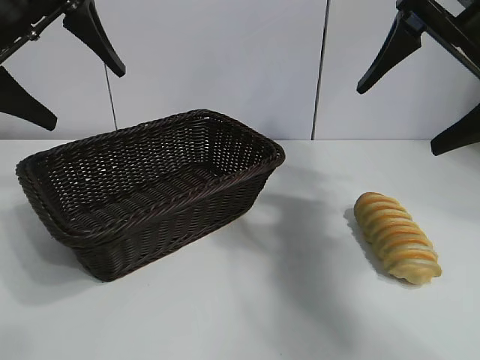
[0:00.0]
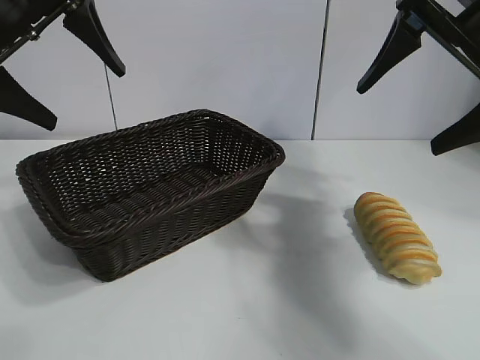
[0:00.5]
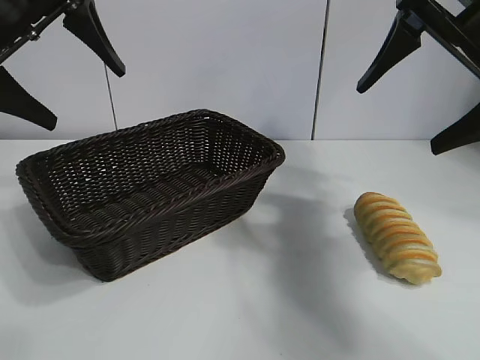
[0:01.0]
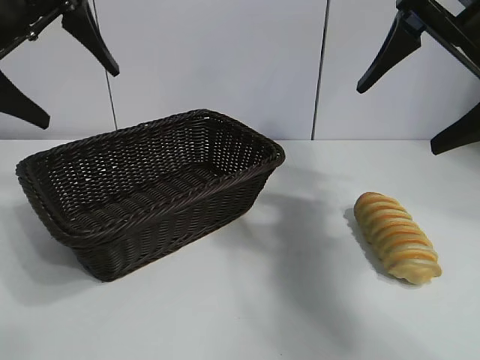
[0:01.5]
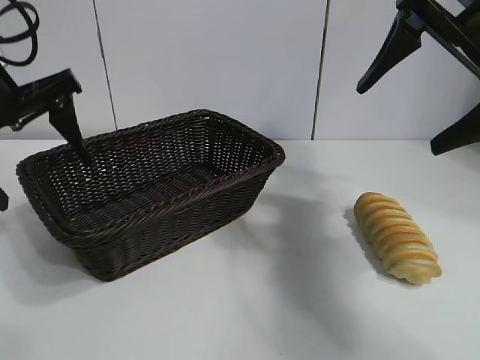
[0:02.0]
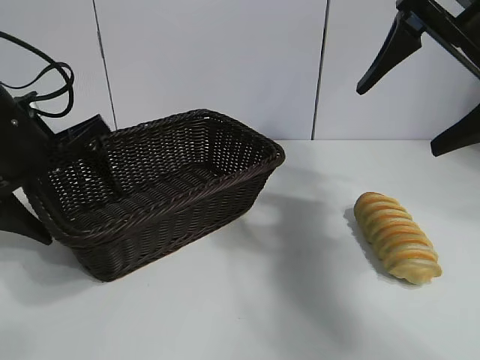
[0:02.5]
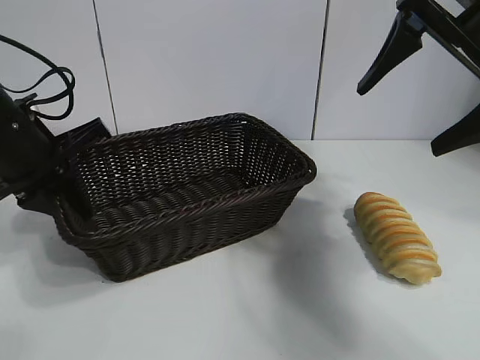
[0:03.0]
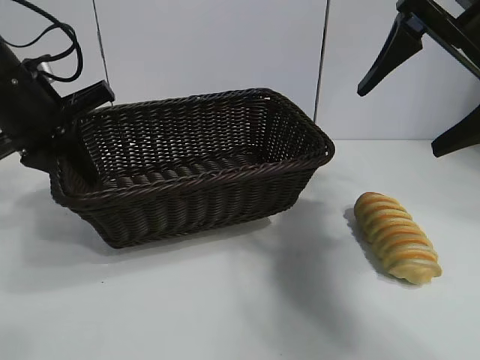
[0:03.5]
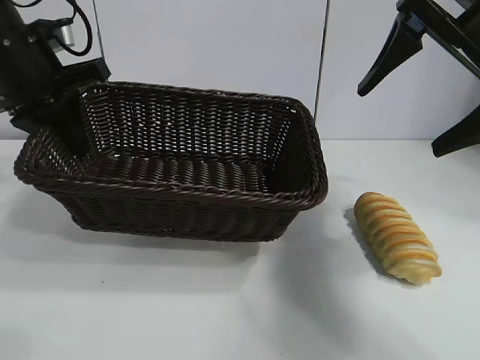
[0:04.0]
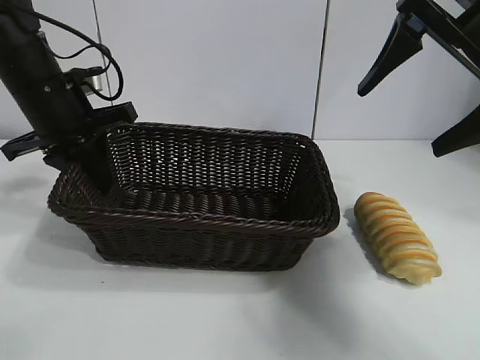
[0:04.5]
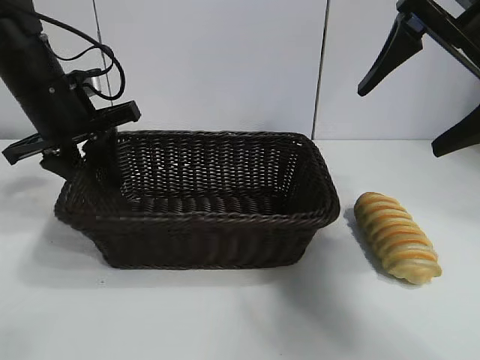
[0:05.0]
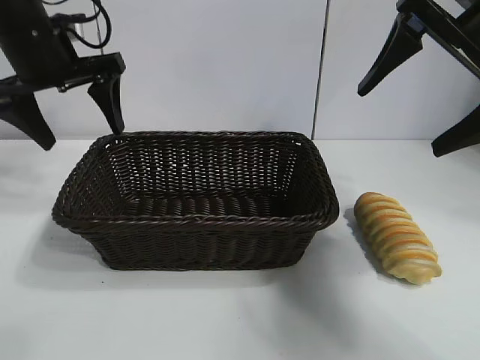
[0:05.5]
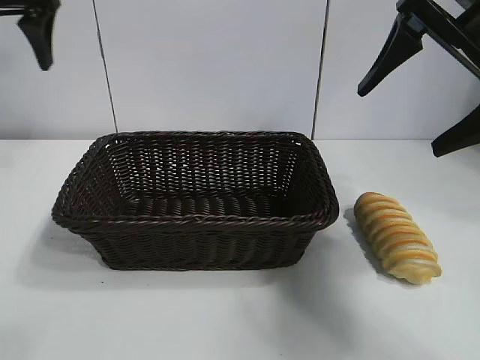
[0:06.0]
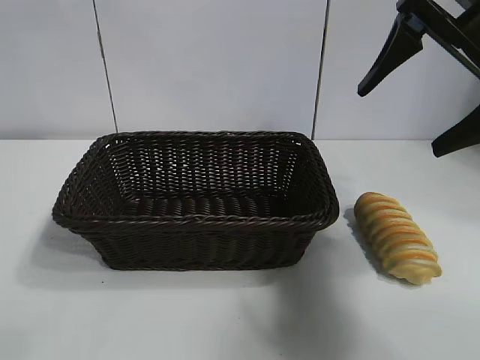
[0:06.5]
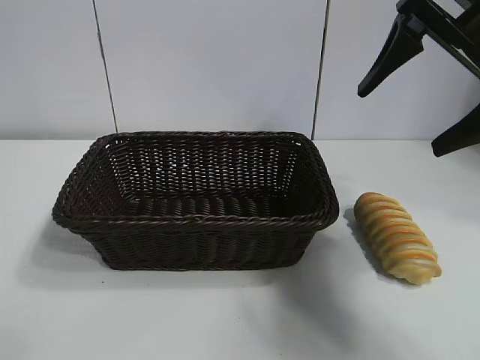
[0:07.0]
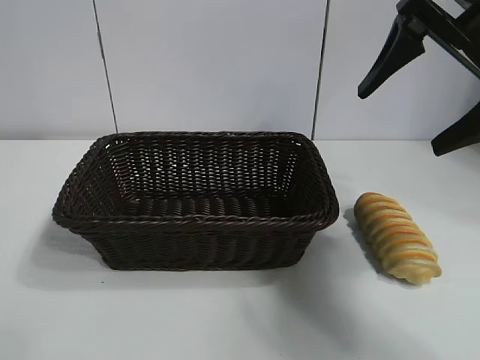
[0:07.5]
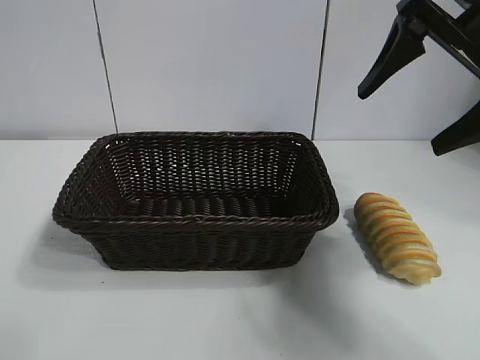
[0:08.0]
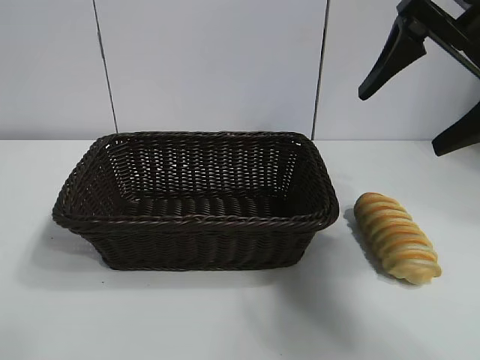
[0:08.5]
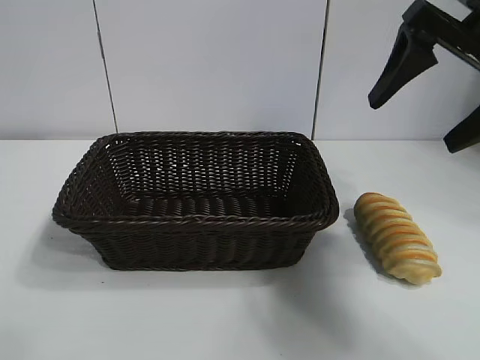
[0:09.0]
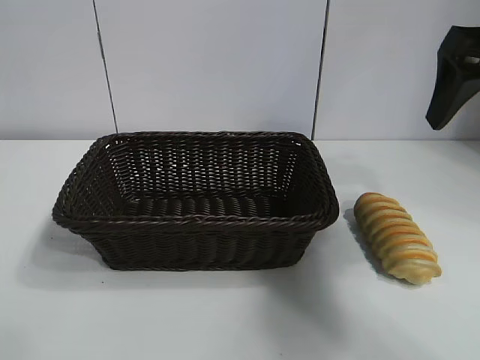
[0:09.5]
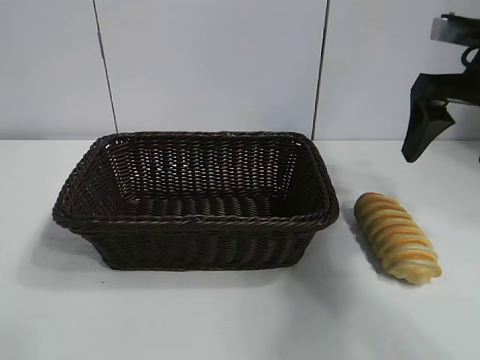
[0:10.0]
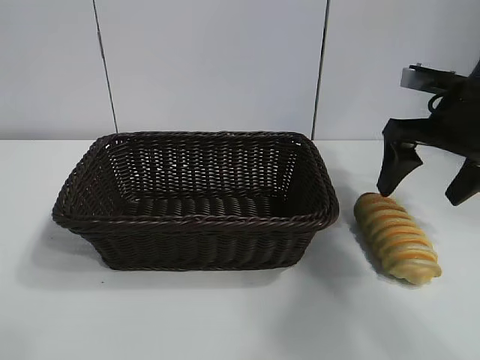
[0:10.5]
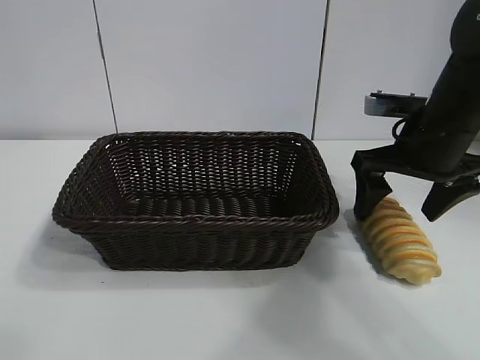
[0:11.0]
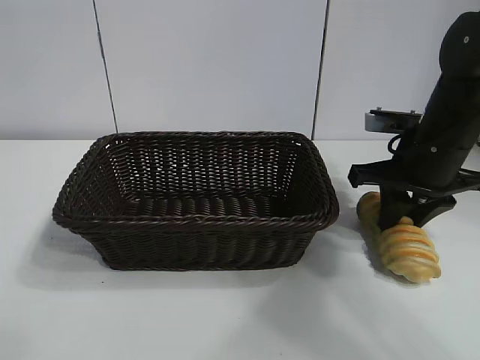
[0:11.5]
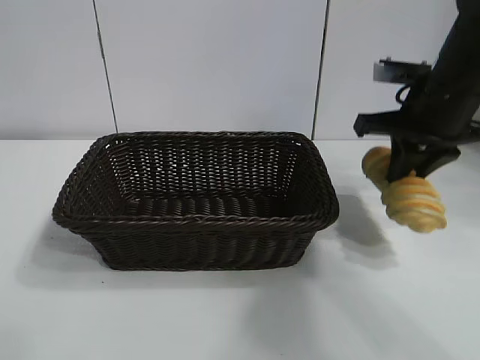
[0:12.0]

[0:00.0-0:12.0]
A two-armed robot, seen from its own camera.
Task of the whole recording: pick up the long bread and put it into the basket.
Step, 0:01.5 to 0:03.0: Grasp the basket with the left gripper.
Step, 0:03.5 to 0:05.0: Place the basket in the center of the table with the left gripper.
Step, 0:05.5 to 0:11.5: Grasp the long bread with right gripper.

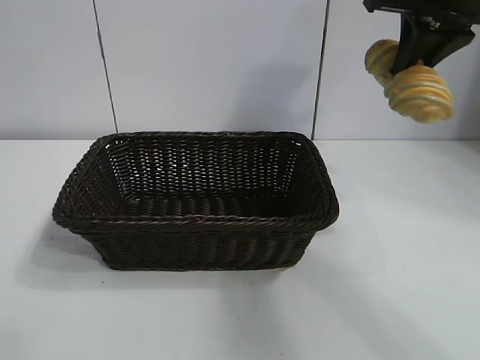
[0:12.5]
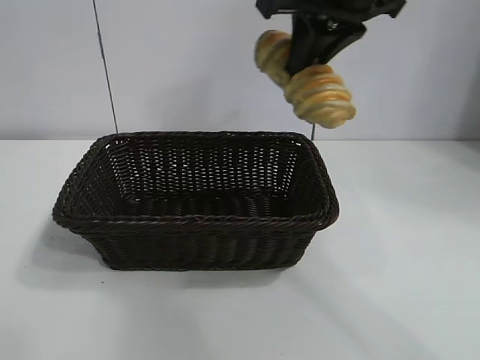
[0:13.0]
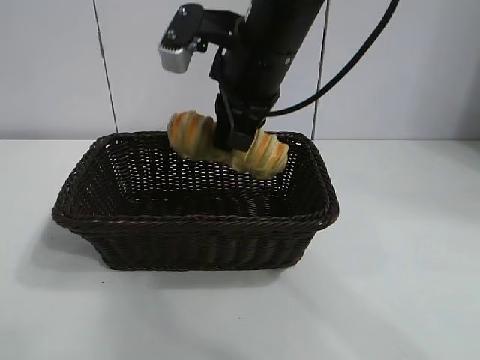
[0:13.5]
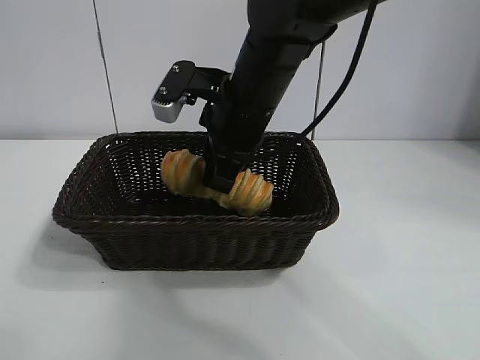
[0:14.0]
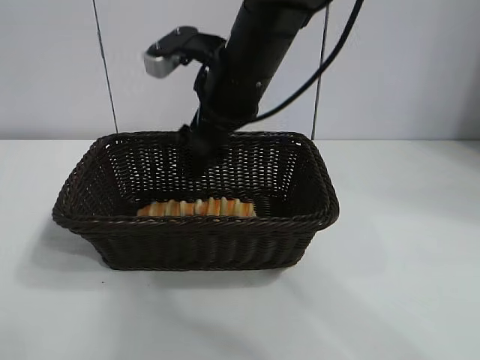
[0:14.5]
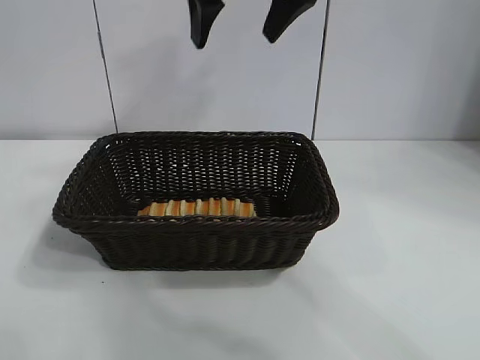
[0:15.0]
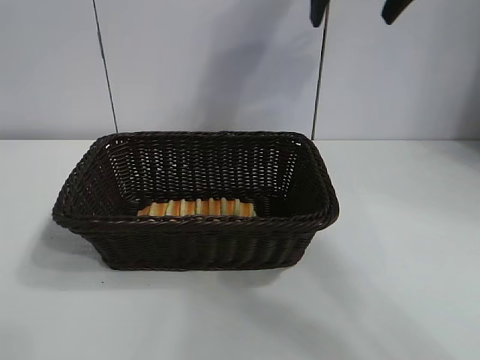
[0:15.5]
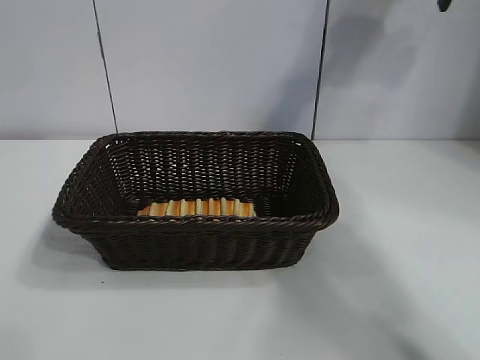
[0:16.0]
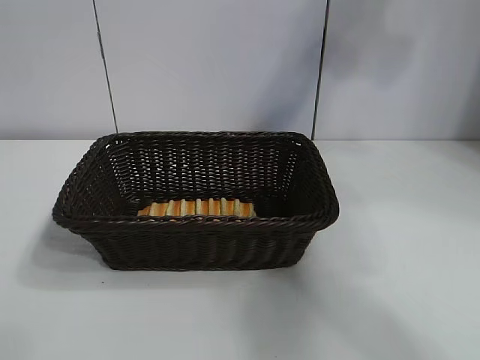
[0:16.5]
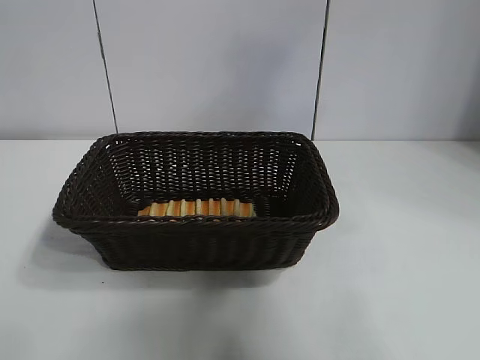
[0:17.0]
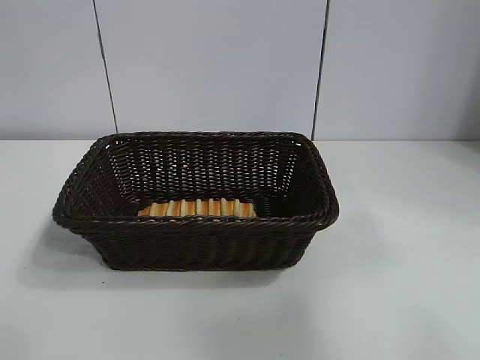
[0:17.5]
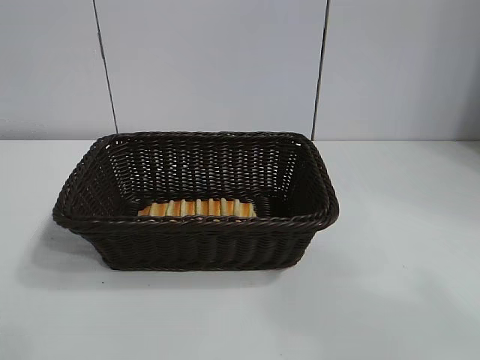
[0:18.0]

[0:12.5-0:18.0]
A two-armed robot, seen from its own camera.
Task of the whole recording: pick up the long bread and put it into the basket.
Step, 0:12.5 to 0:14.5: Place the long bread in the basket with right gripper.
